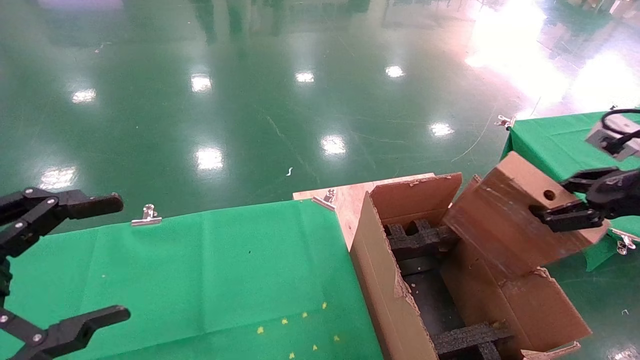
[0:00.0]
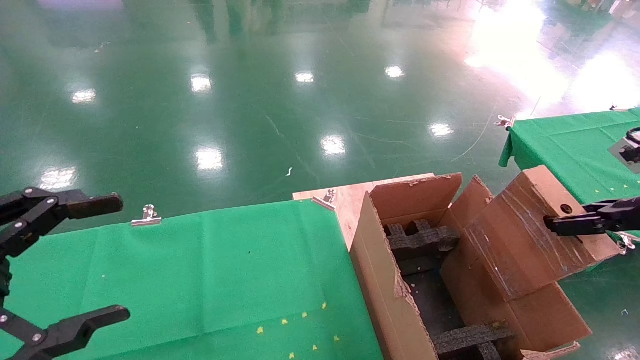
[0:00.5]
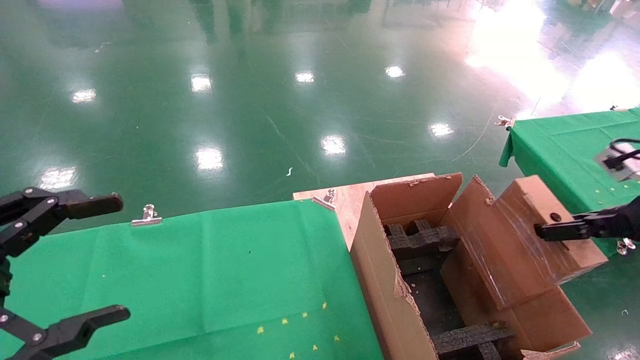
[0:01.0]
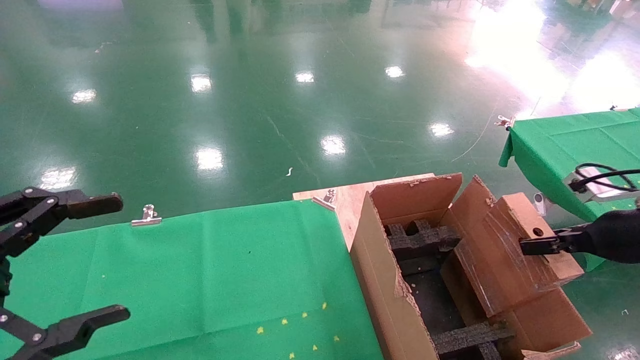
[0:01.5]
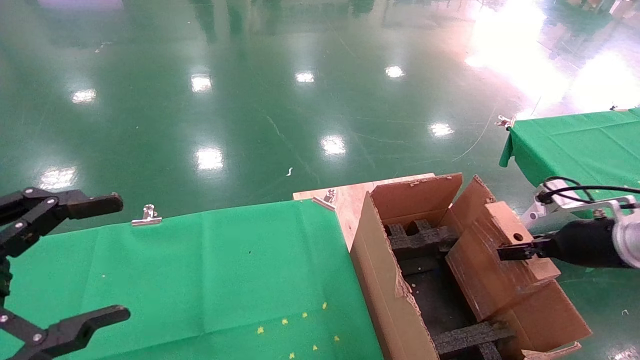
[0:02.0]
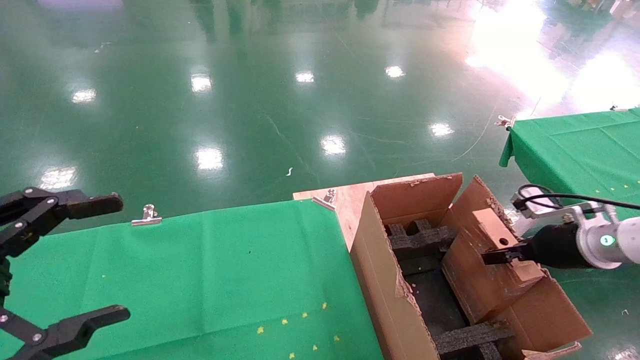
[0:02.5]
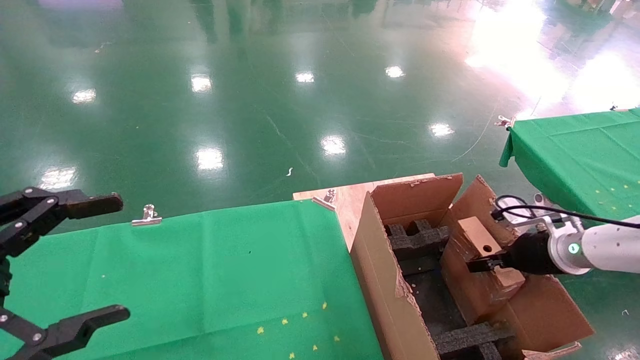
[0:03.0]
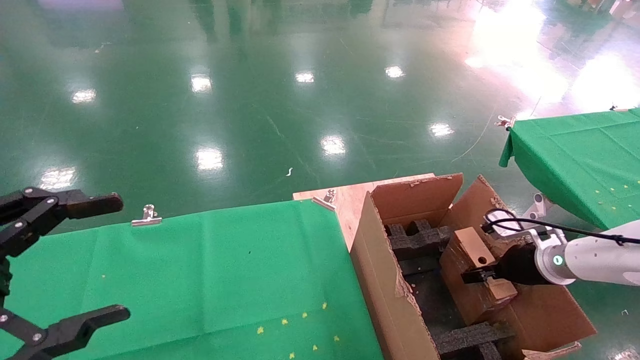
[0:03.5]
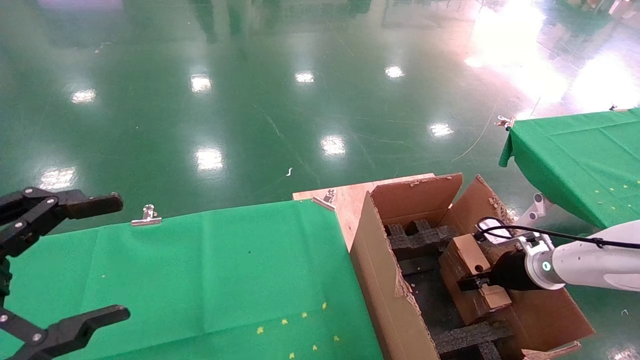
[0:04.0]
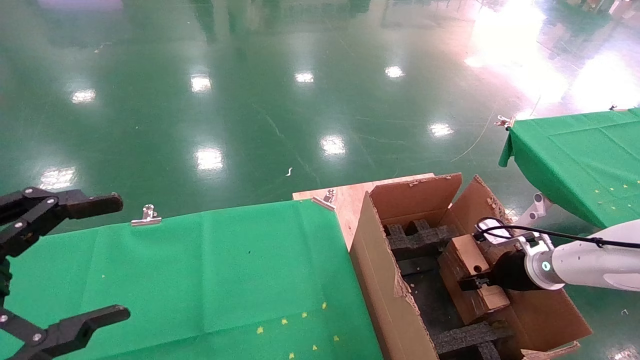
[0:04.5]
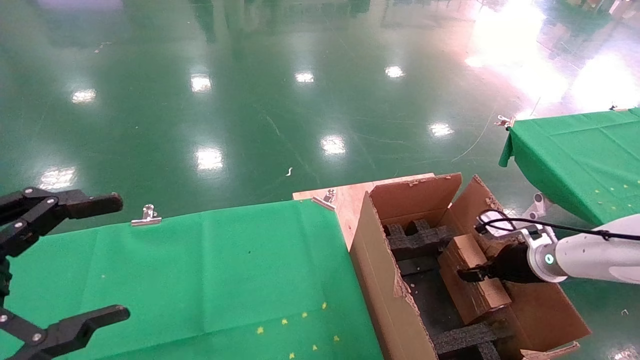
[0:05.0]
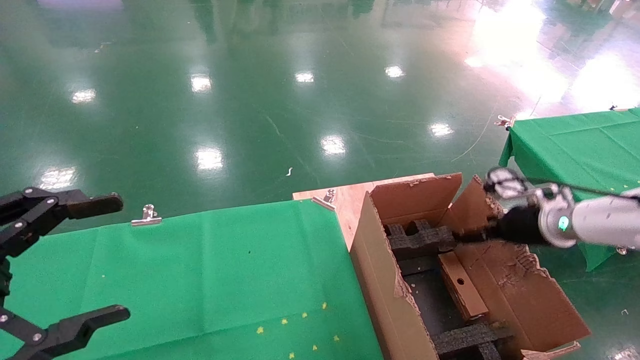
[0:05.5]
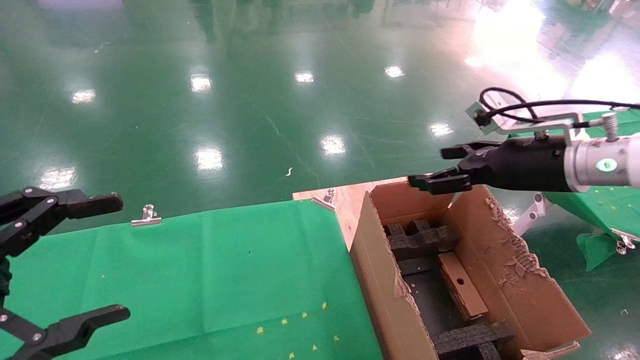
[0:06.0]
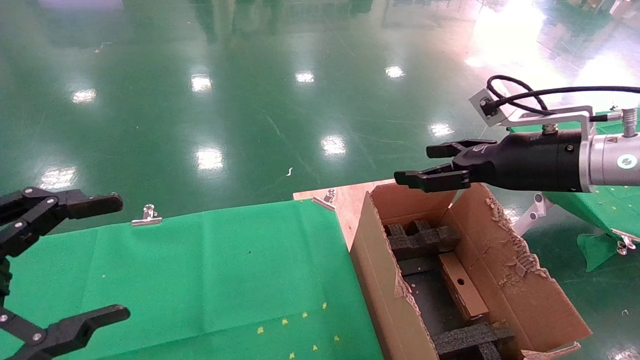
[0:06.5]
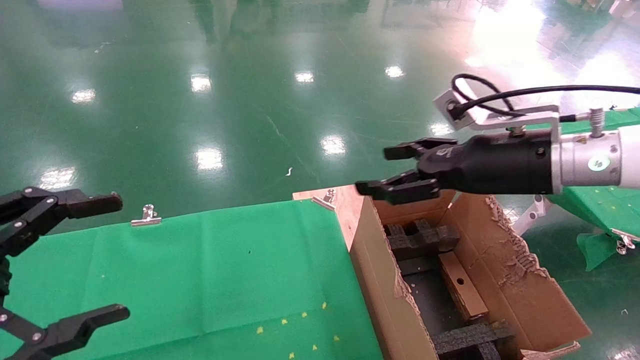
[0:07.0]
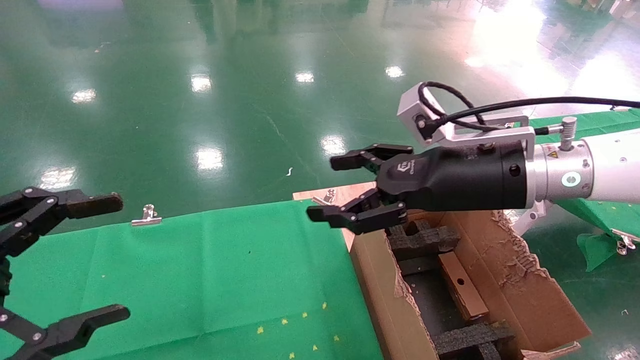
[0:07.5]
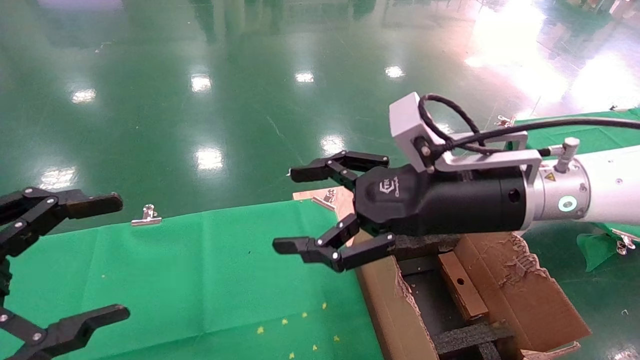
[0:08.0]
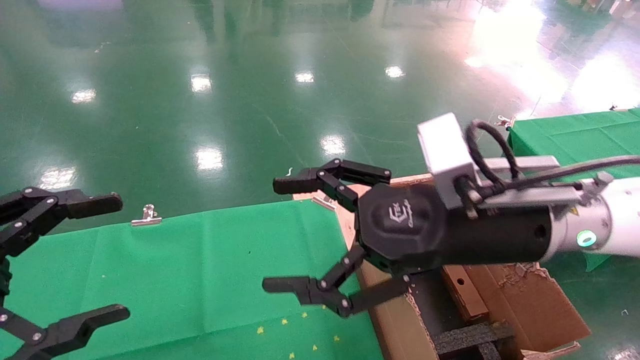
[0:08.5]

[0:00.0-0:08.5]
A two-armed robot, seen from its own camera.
Task of the whole recording: using a robotic arm to pick up a cardboard box and palace it the carton.
Step, 0:00.0 to 0:05.5: Place the mouse and the power cord paper box into the container.
0:00.0 to 0:02.0: The right gripper is displaced downward and forward by roughly 15 cm.
0:02.0 to 0:04.0: The right gripper moves downward and forward, about 15 cm.
0:04.0 to 0:06.5: The right gripper shifts about 25 cm upward and to the left, and opens its fingers.
0:06.5 to 0:08.5: The right gripper goes about 15 cm to the left and backward.
